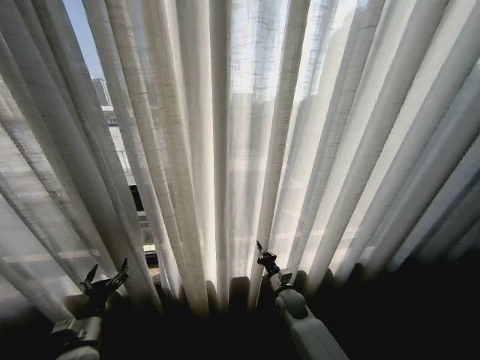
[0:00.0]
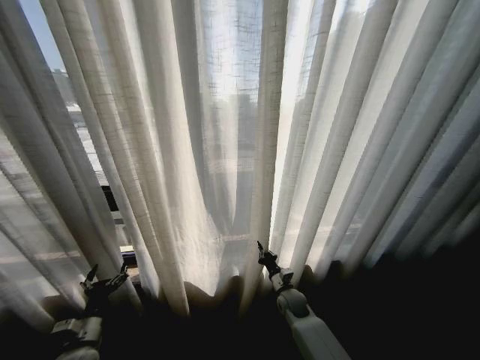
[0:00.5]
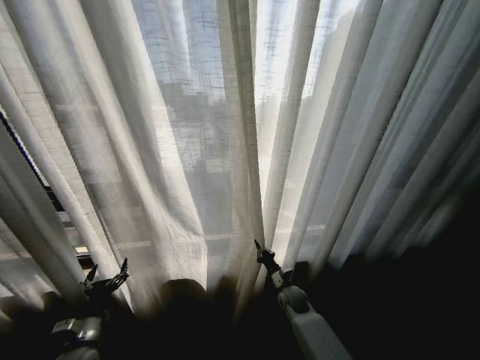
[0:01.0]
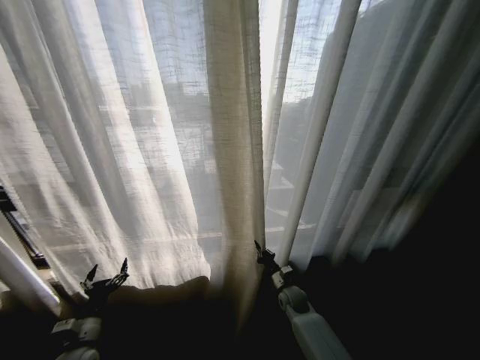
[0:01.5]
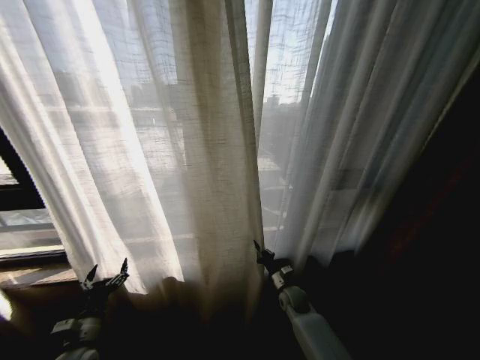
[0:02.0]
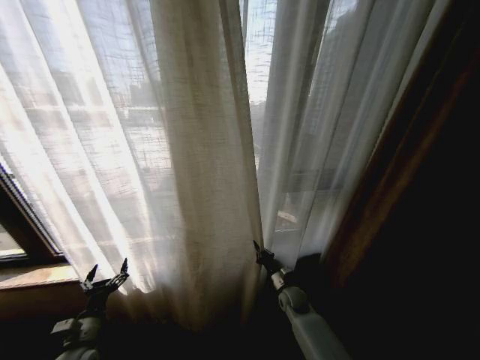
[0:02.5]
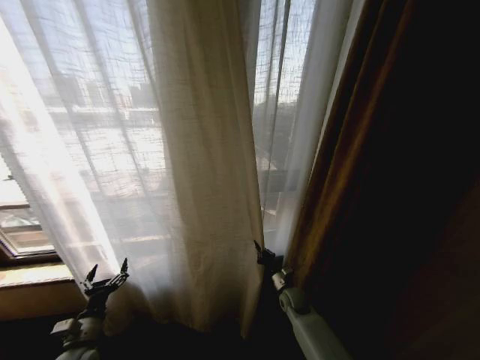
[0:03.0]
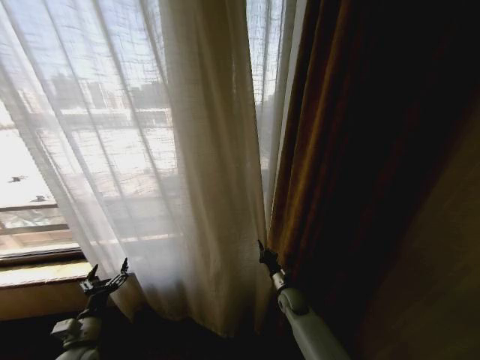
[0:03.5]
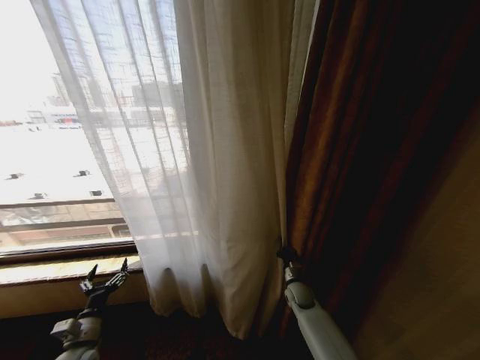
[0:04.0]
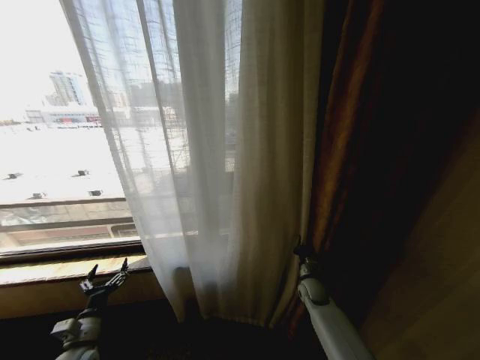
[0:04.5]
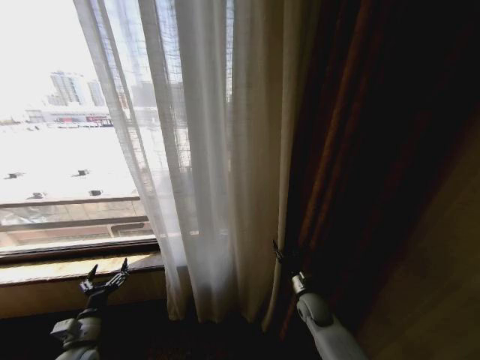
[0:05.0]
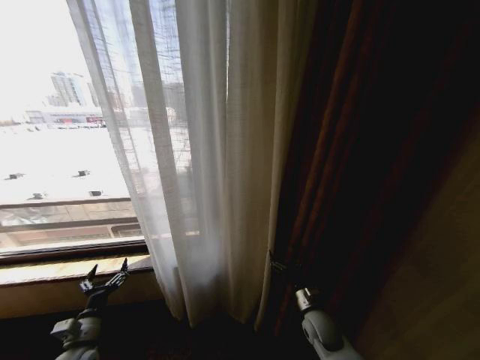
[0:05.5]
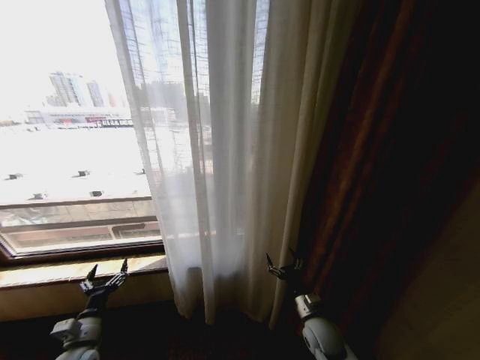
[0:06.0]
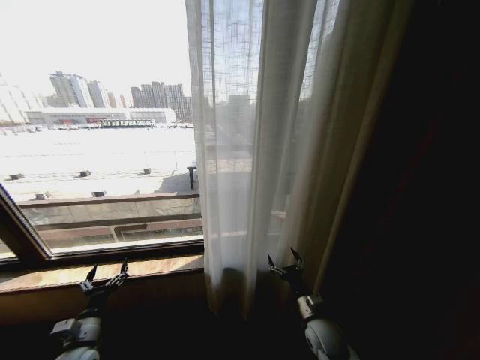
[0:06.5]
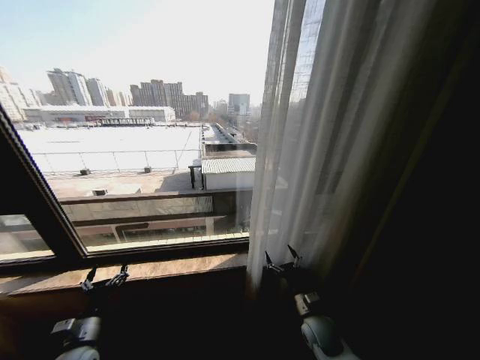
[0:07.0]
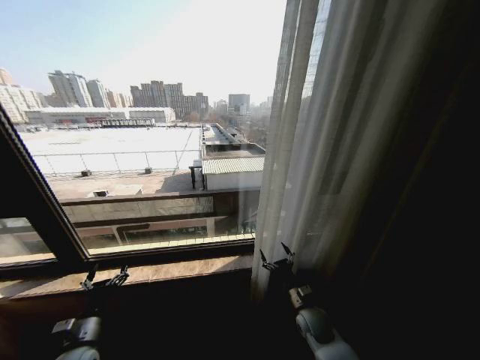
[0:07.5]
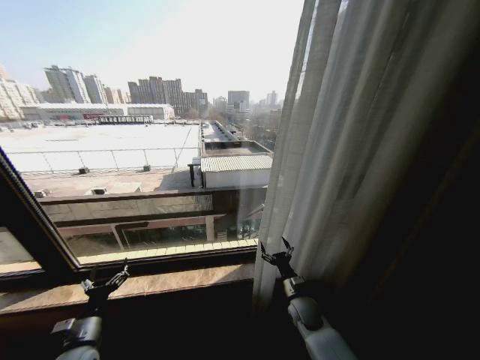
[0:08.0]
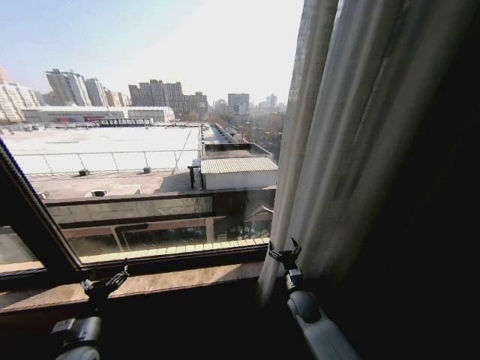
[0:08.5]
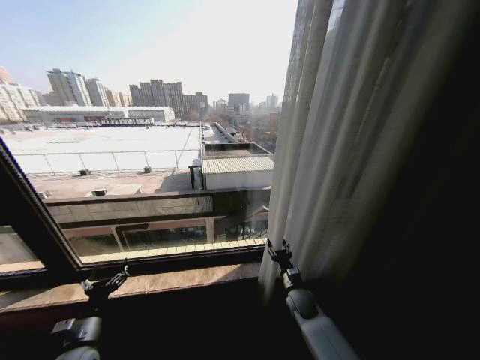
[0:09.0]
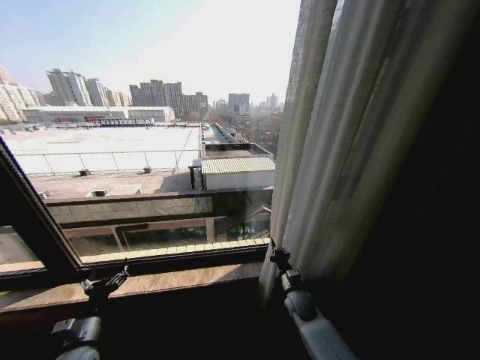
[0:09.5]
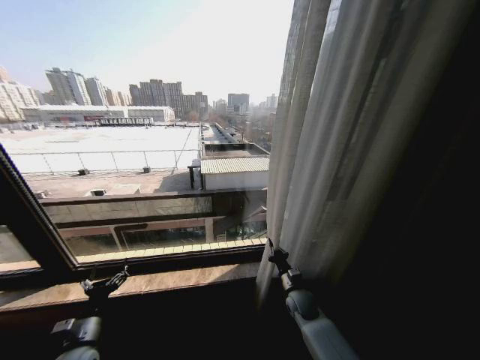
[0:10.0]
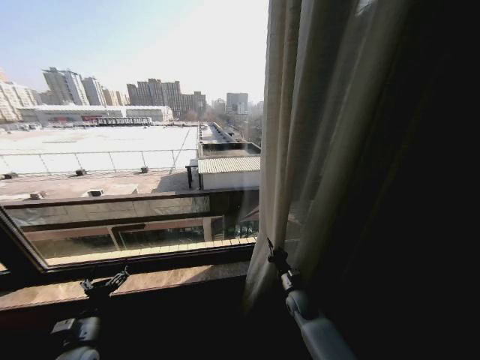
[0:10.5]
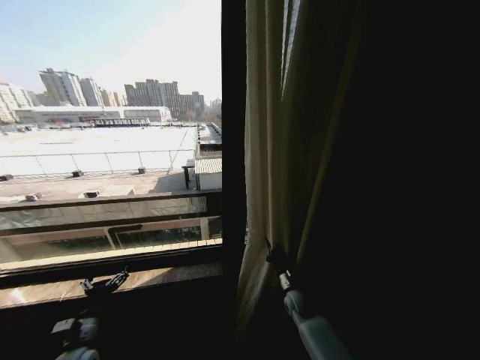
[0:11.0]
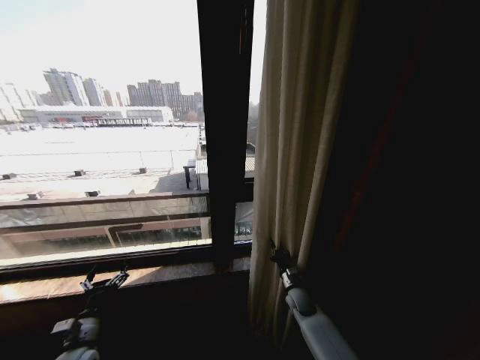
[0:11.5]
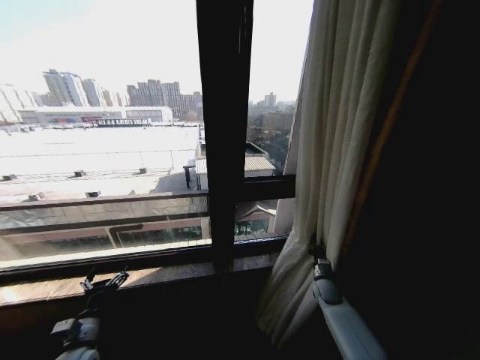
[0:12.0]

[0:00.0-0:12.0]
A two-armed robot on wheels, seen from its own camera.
Task of the whole recording: Open the curtains by pulling them apart, changing their state from closed to fully open.
0:04.0 to 0:06.0: The right gripper goes about 15 cm backward, and opens its fingers.
0:06.0 to 0:08.0: The right gripper goes roughly 5 cm forward.
0:08.0 to 0:10.0: The right gripper closes up.
0:10.0 to 0:12.0: The right gripper travels to the right by approximately 10 cm.

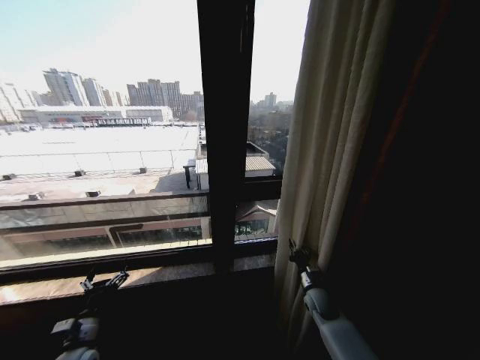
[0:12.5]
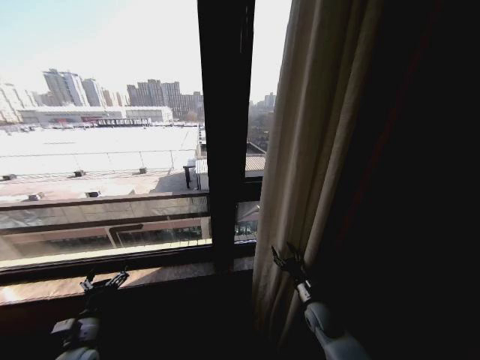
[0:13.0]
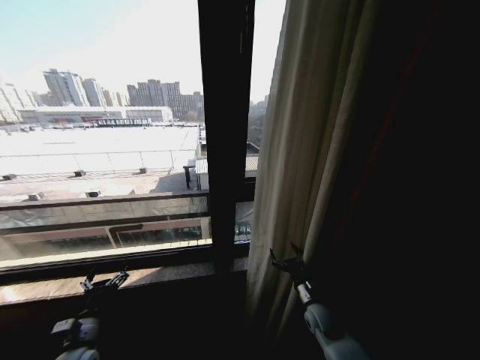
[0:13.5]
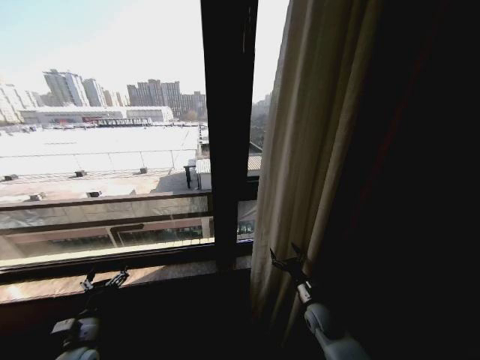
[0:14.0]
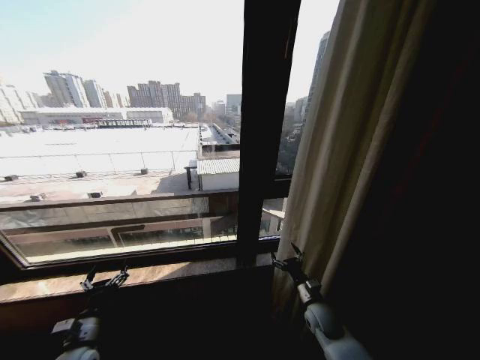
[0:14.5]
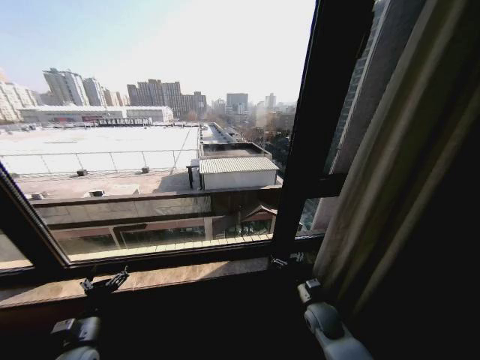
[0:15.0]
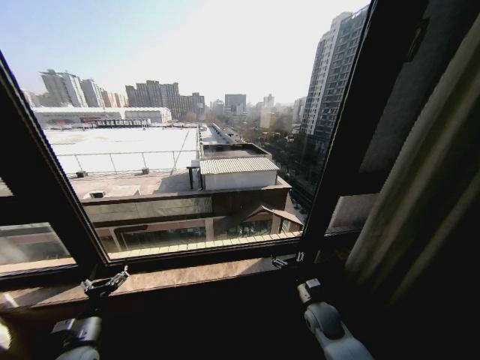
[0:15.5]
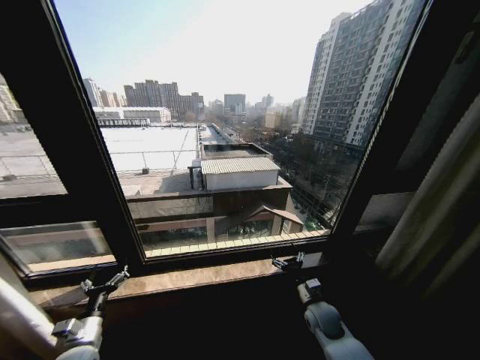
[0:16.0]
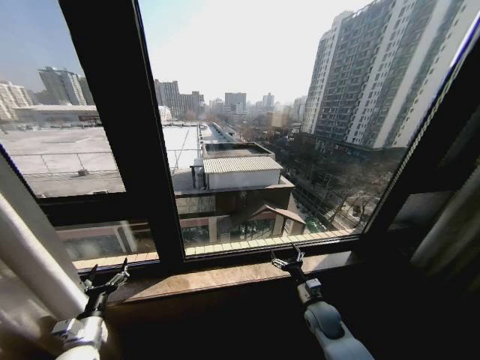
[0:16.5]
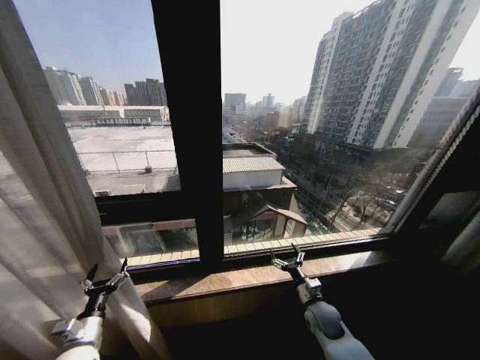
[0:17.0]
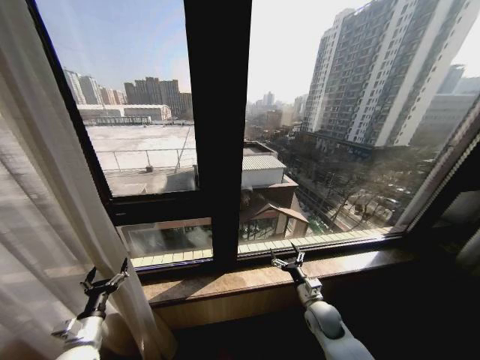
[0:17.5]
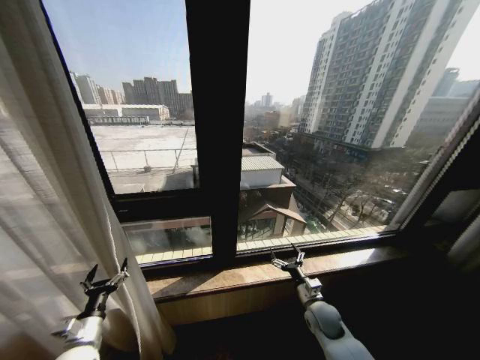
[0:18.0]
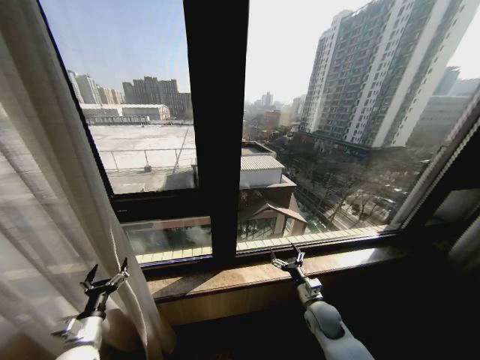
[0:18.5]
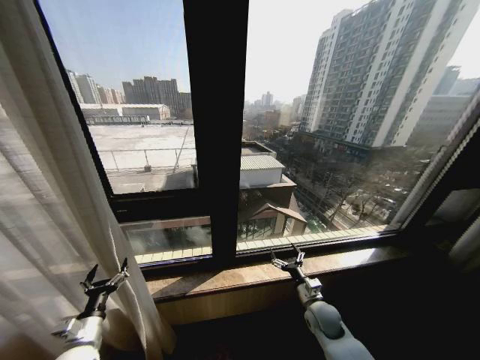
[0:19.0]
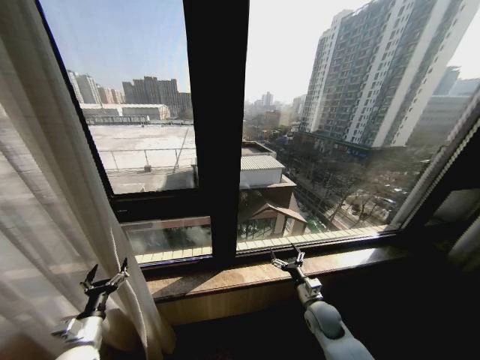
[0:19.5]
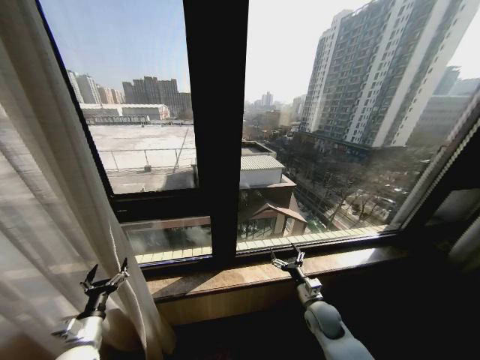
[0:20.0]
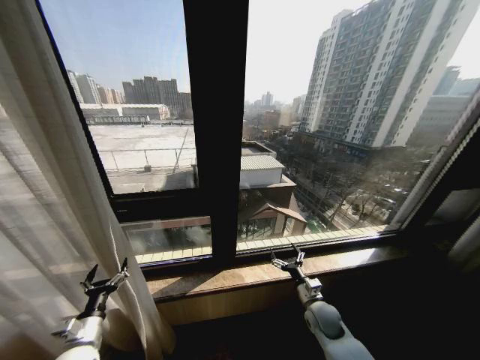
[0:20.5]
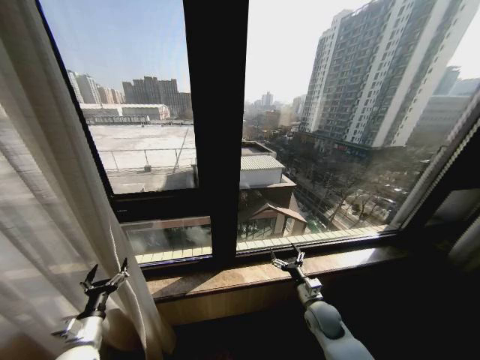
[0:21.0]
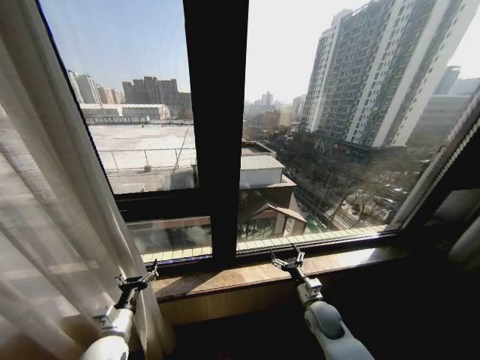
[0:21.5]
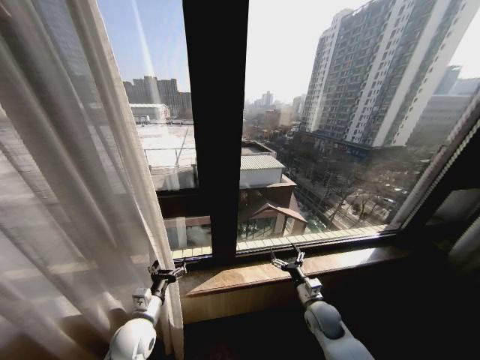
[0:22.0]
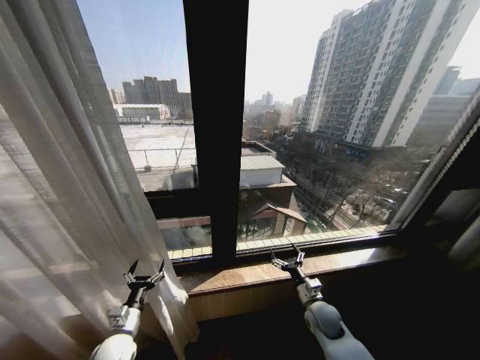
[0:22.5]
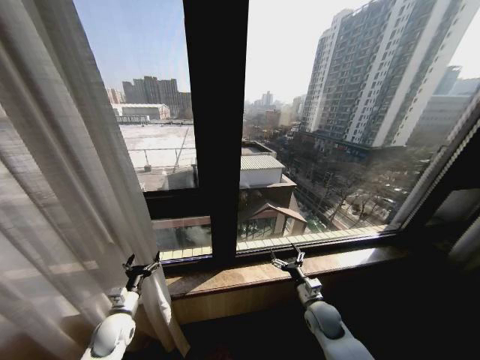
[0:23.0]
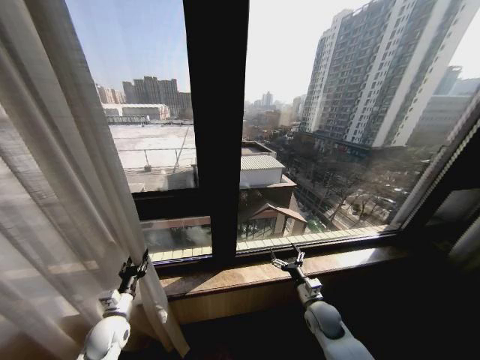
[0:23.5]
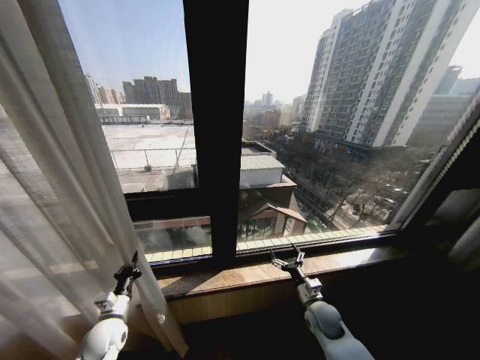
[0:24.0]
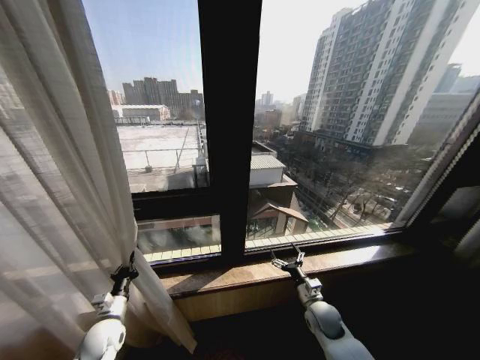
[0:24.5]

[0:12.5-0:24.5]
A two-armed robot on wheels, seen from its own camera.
Task of the whole recording: Open the curtains by pulling them apart, changing their state from closed to fully open.
0:12.5 to 0:14.5: The right gripper travels backward by some 5 cm, and opens.
0:18.5 to 0:20.5: Both grippers stay about where they are.
0:20.5 to 0:22.5: The left gripper shifts some 5 cm to the right.
0:22.5 to 0:24.5: The left gripper moves about 5 cm, and closes its fingers.

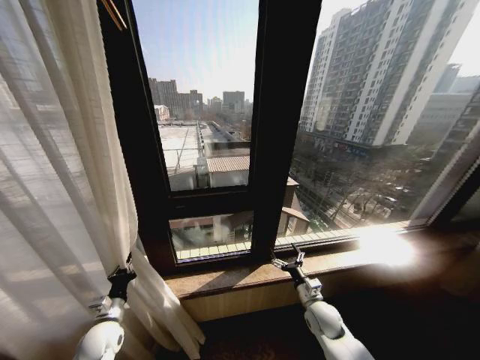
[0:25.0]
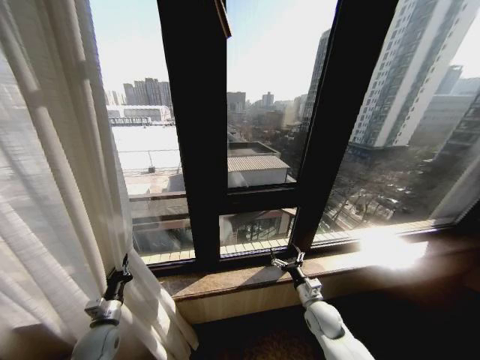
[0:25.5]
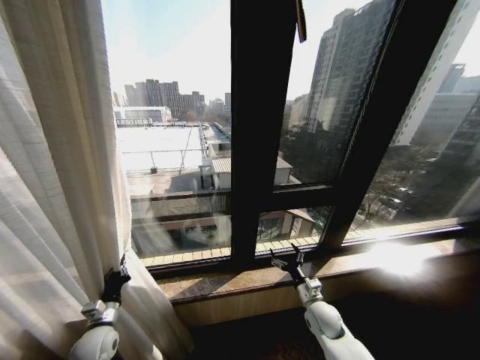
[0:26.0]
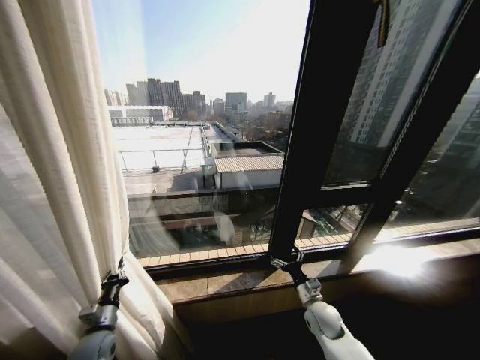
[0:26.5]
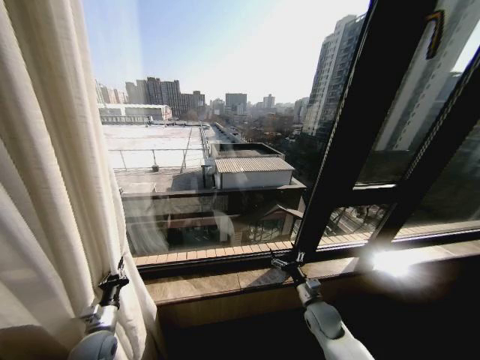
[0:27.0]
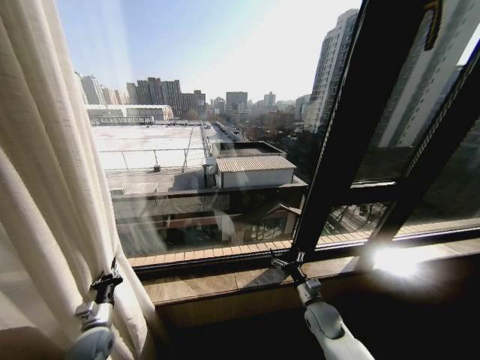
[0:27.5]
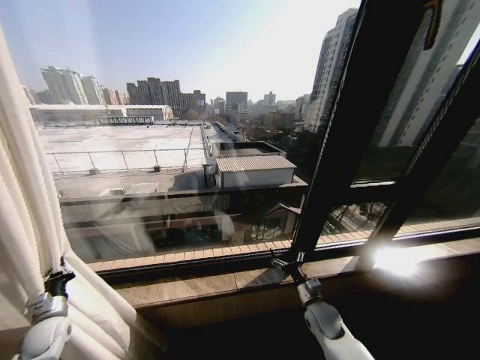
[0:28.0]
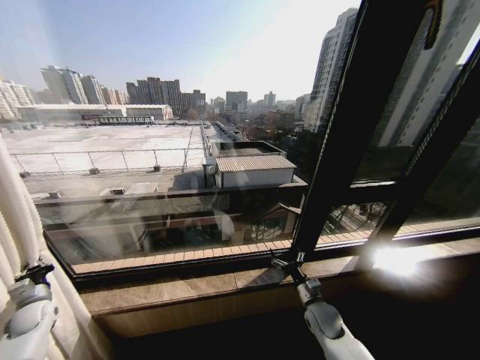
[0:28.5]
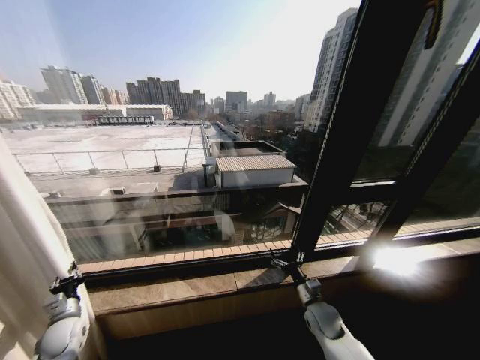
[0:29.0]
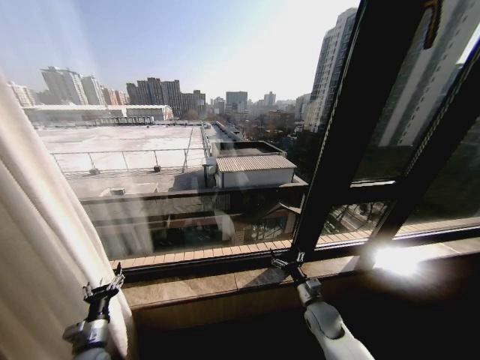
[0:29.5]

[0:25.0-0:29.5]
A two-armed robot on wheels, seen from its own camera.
Task of the whole recording: Open the curtains by pulling them apart, changing their state from closed to fully open.
0:27.0 to 0:29.5: The left gripper moves approximately 20 cm to the left and comes back, and opens up.
